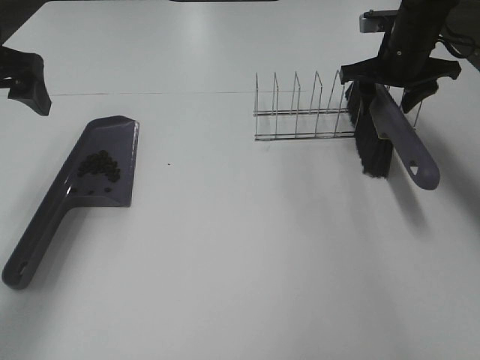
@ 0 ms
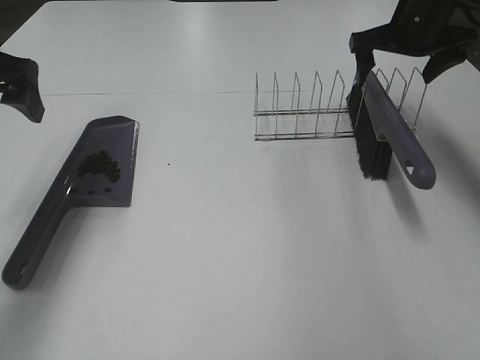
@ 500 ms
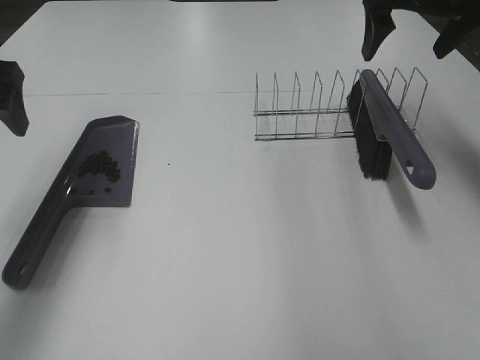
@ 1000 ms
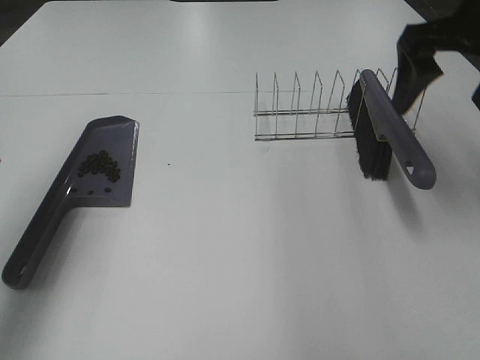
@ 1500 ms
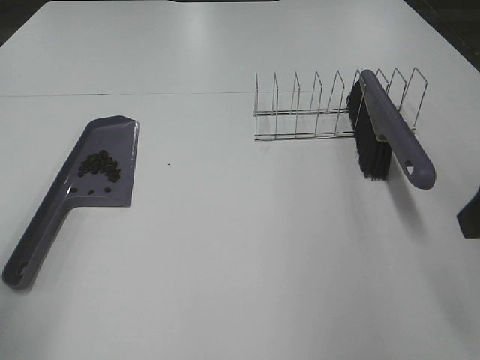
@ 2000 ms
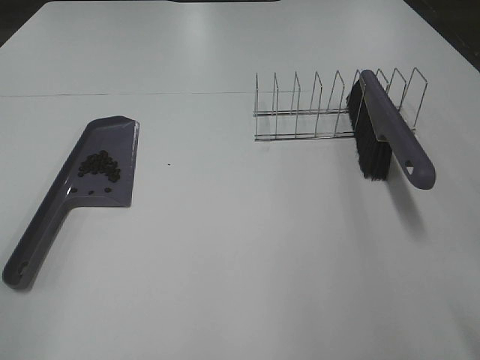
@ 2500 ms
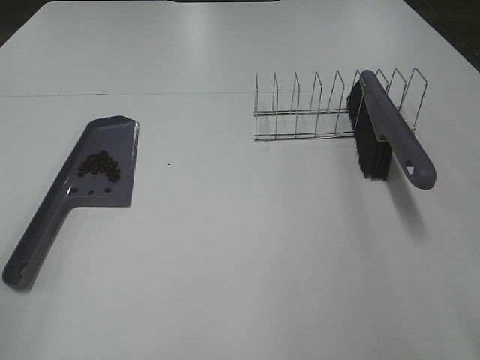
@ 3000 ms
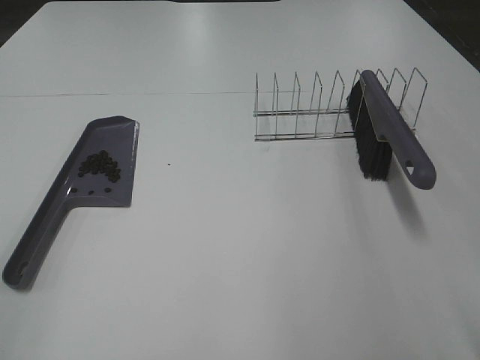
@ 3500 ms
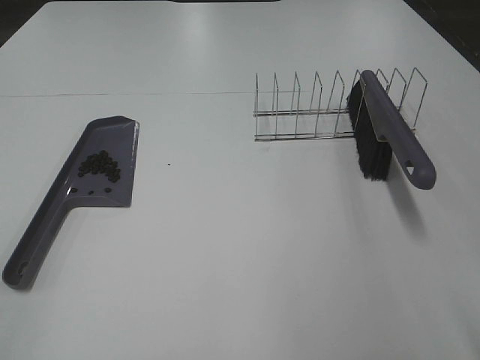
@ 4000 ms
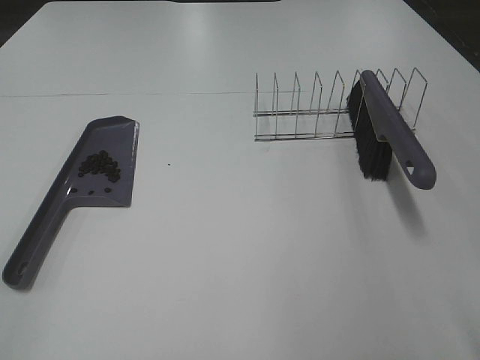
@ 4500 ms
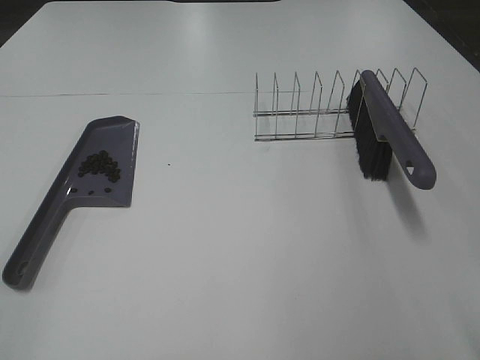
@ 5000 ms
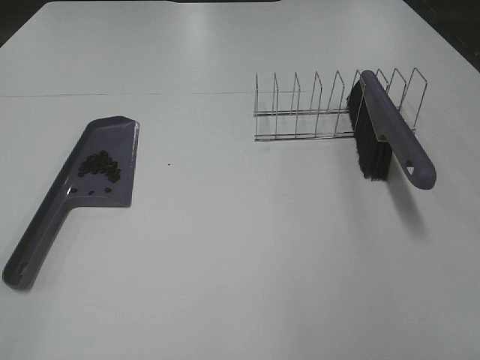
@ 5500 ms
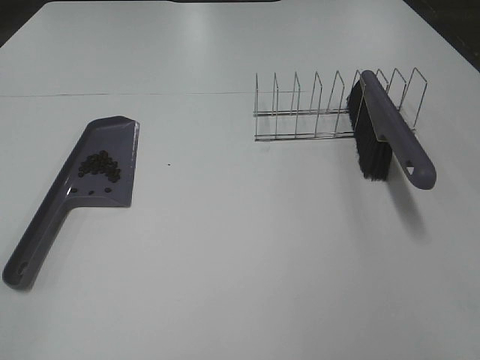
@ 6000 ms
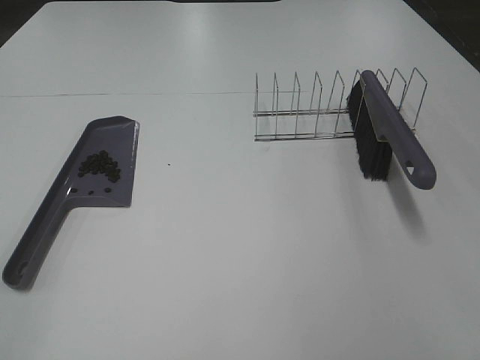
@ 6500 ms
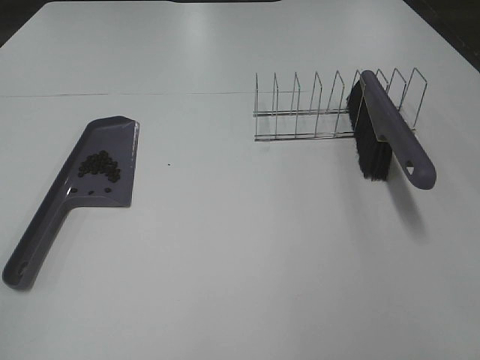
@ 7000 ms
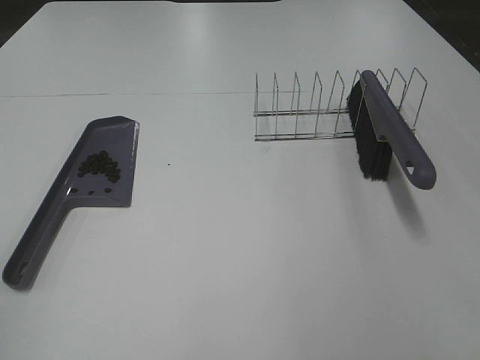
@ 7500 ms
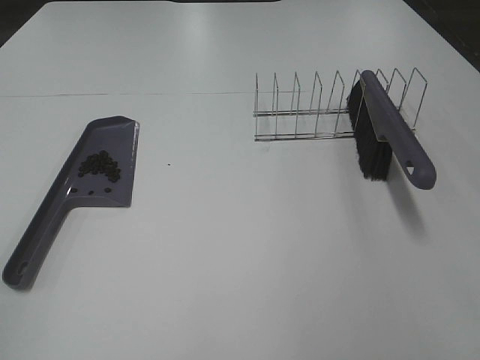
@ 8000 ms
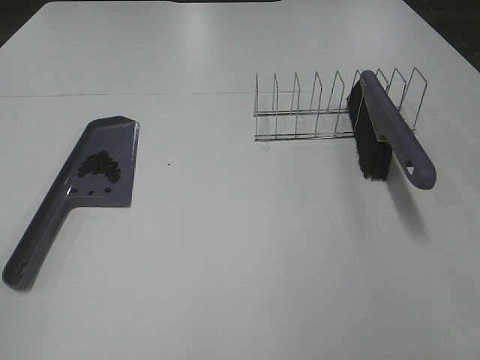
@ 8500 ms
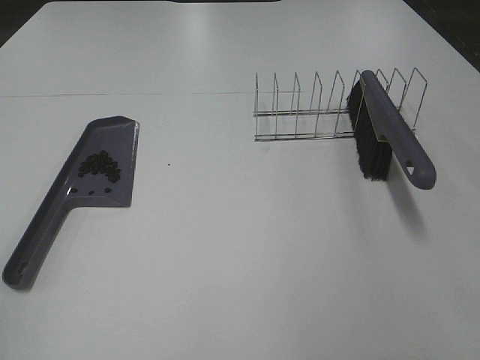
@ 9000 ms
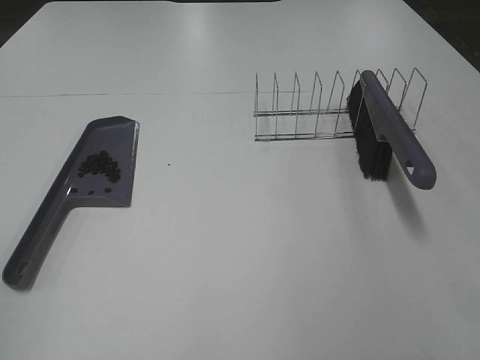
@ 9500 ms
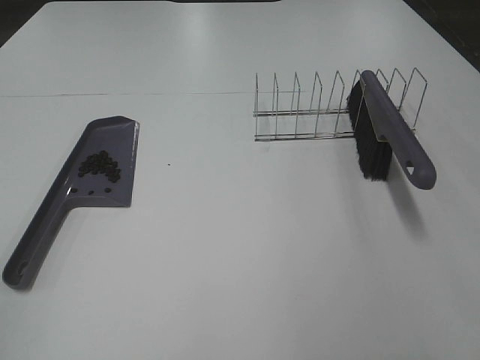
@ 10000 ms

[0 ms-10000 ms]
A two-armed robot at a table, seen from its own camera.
Task of the whole recording: Sweep Coffee Bean.
0 ms to 2000 ms: Both grippers move backward, approximately 25 cm. The right gripper opens its fingers.
8000 ms to 10000 ms: Both grippers stay put.

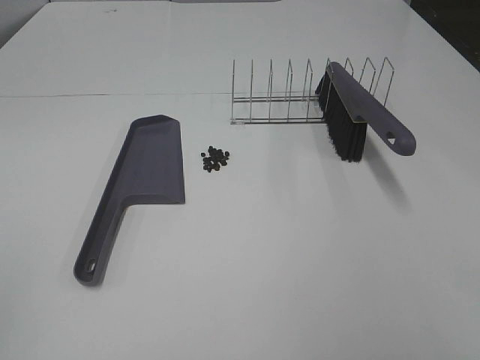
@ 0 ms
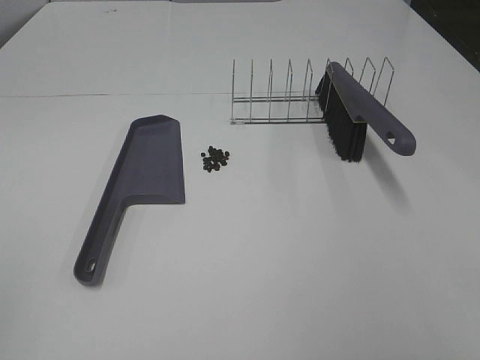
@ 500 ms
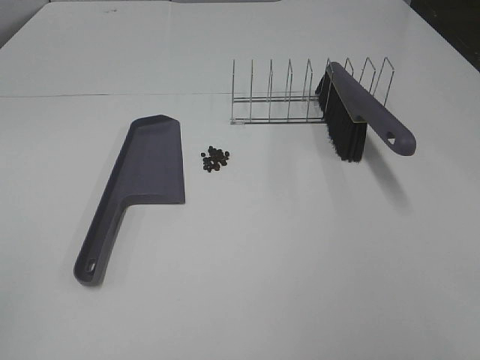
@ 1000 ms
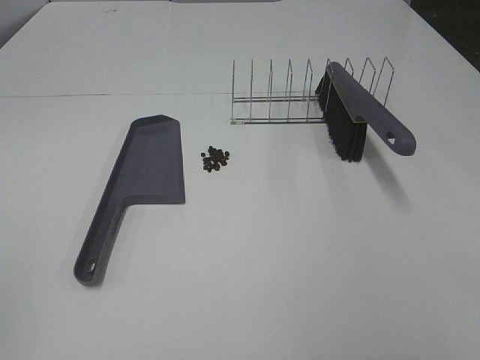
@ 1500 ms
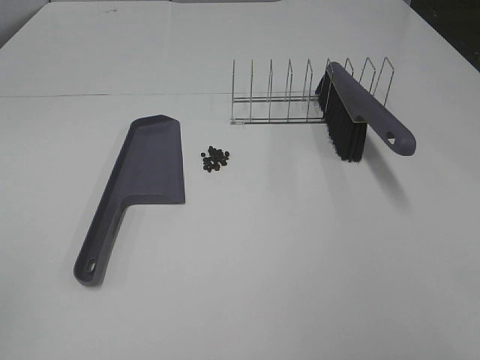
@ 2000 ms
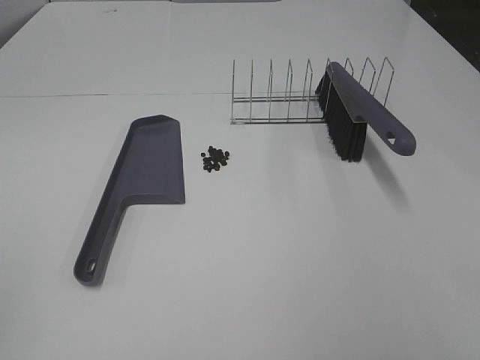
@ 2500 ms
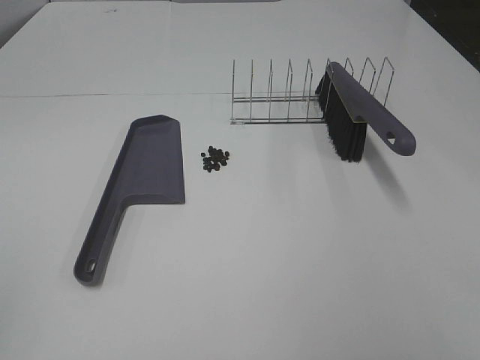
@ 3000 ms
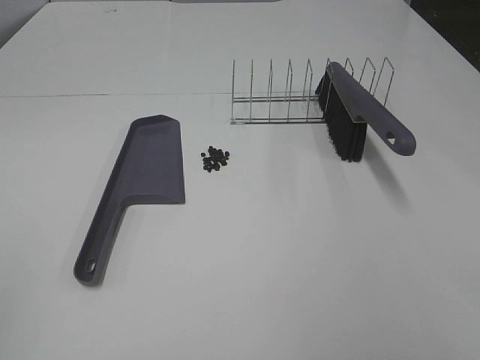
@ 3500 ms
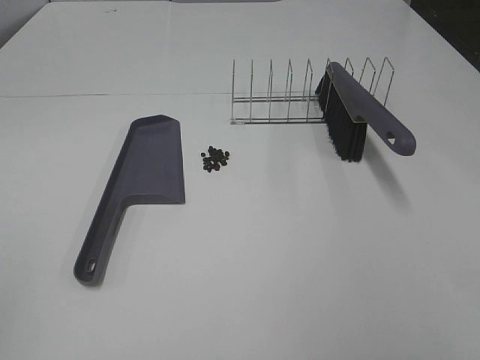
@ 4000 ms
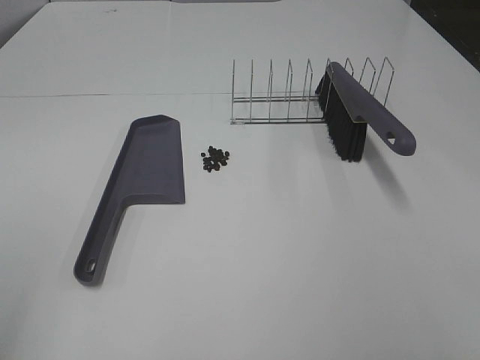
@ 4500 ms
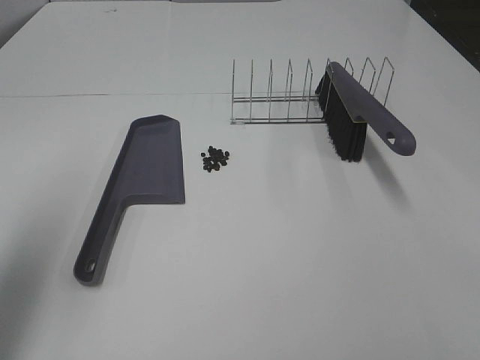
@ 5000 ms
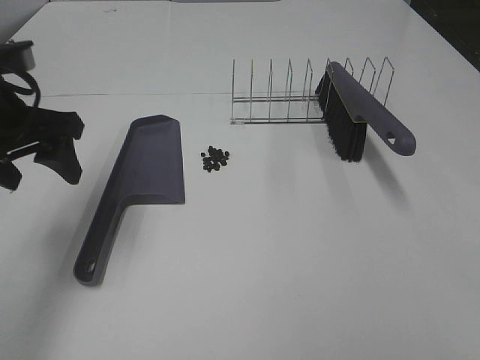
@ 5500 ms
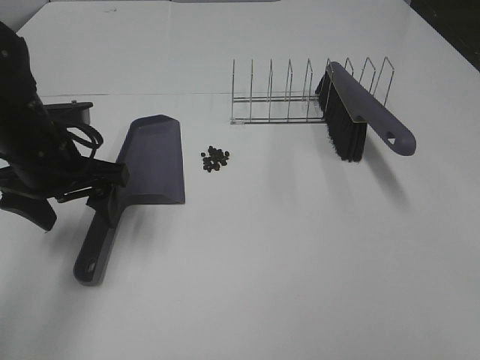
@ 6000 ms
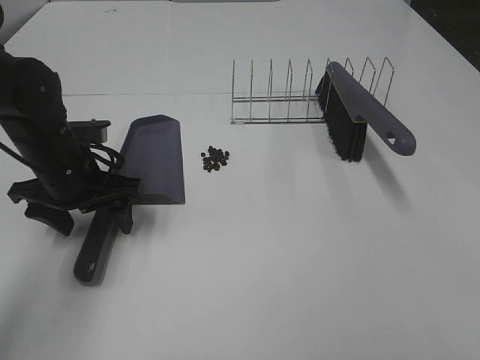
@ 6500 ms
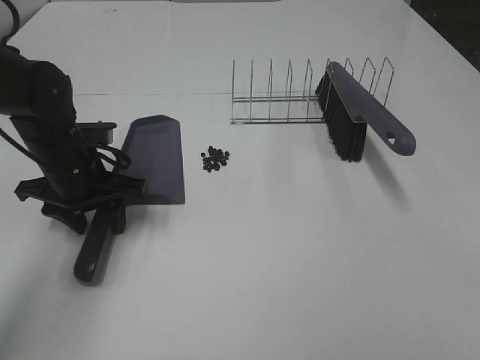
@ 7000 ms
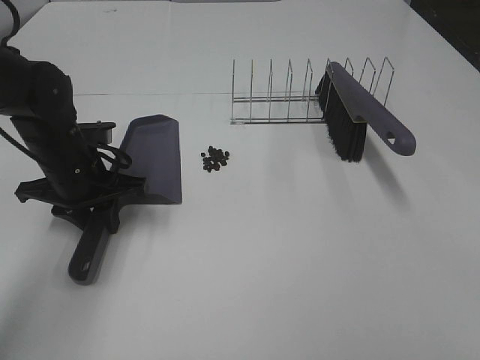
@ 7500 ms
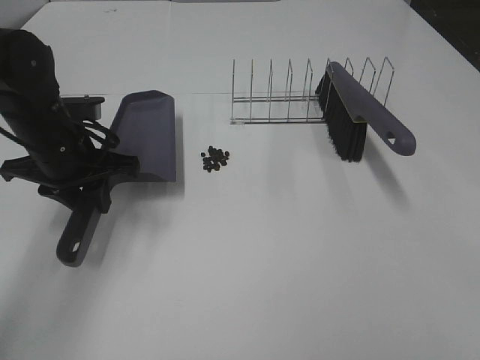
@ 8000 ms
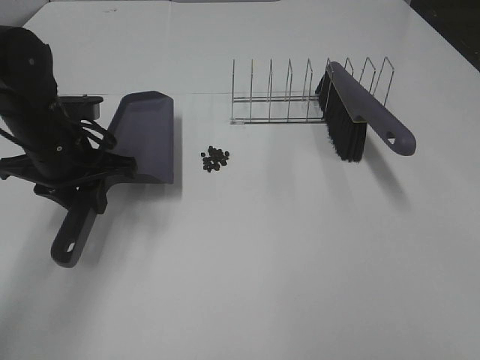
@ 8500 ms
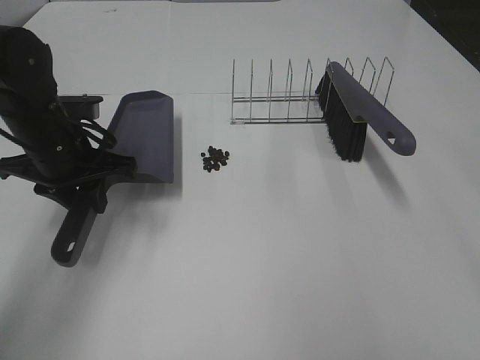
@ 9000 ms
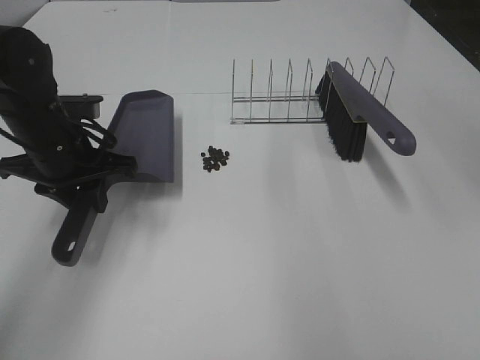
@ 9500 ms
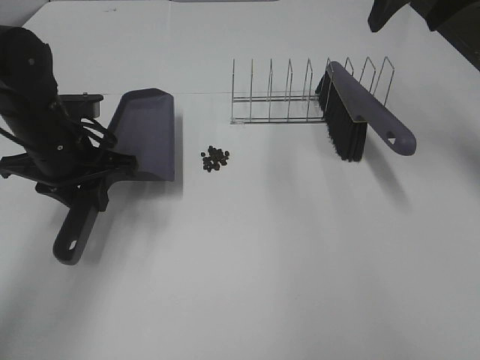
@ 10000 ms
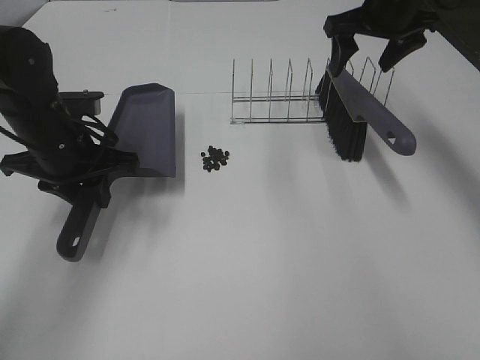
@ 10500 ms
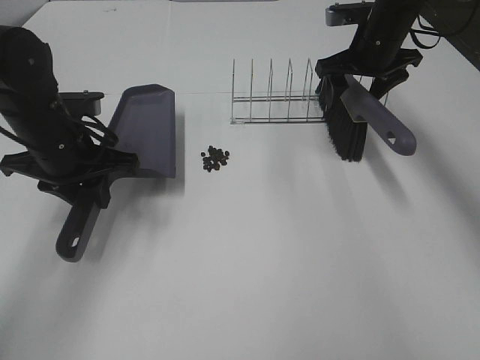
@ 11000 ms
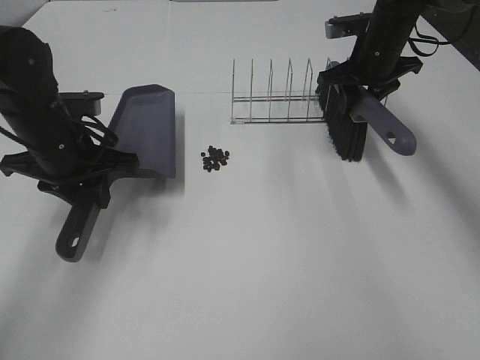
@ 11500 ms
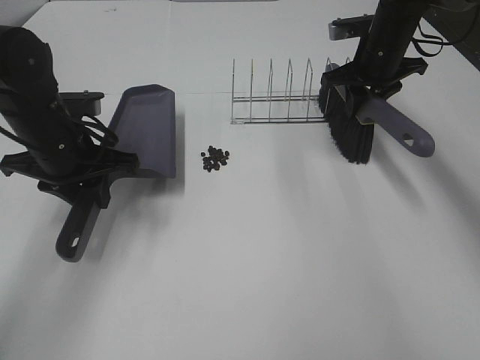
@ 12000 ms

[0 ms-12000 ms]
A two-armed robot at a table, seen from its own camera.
Task of the whole recording: Sweep Coffee Bean.
Step, 0 ms to 7000 ms: Left hand: grab the dustpan.
Step, 8500 ms to 11500 ms: Right hand:grab the broom.
0 ms to 4000 ms: Both grippers stay put.
4000 ms to 6000 ms: The left gripper is displaced forward and downward by roughly 35 cm.
6000 ms to 8000 ms: The left gripper closes.
8000 ms to 10000 ms: The right gripper moves forward, some 40 cm.
10000 ms to 12000 ms: The right gripper is displaced downward and forward by roughly 15 cm, and closes.

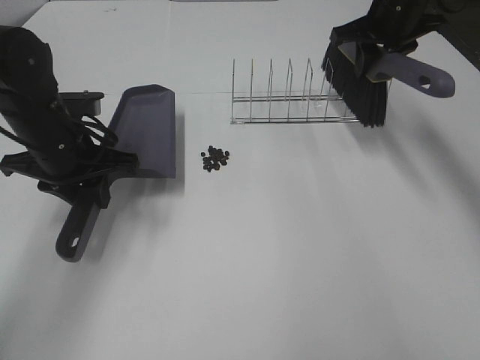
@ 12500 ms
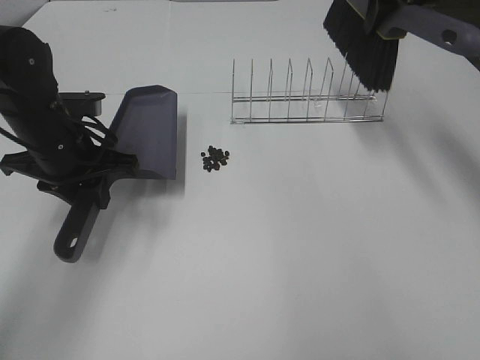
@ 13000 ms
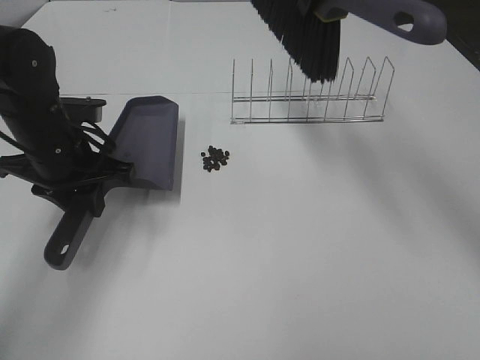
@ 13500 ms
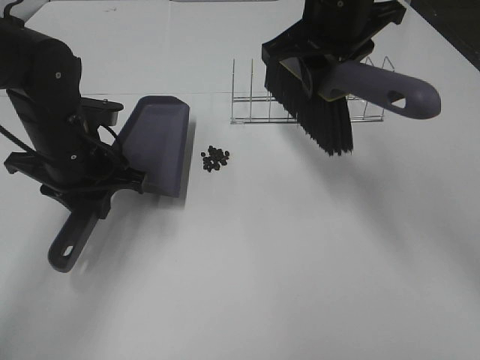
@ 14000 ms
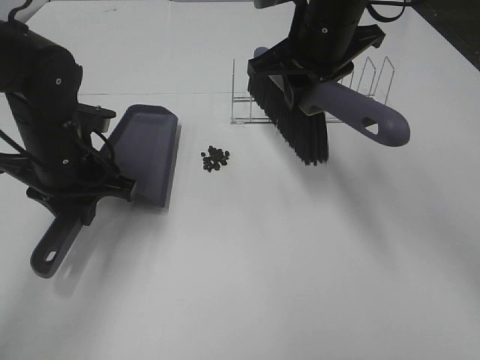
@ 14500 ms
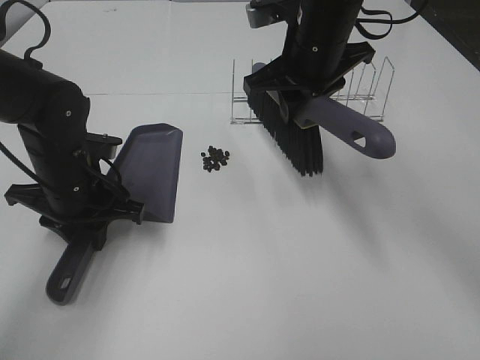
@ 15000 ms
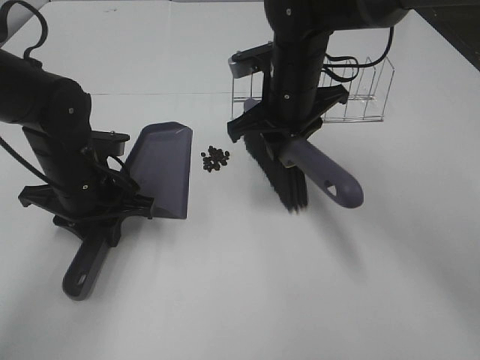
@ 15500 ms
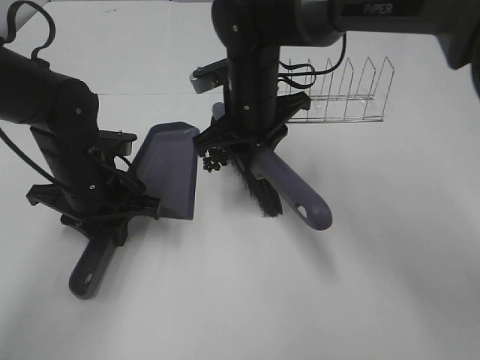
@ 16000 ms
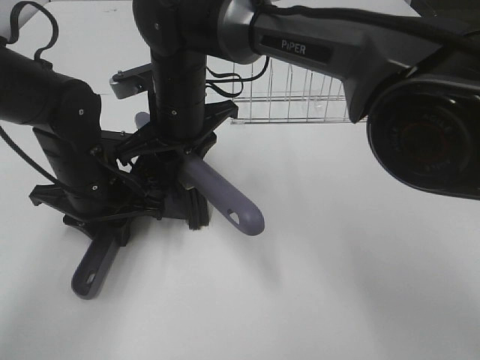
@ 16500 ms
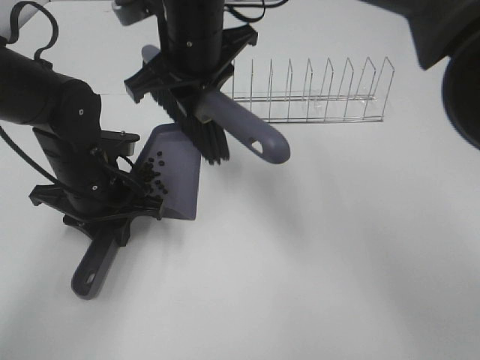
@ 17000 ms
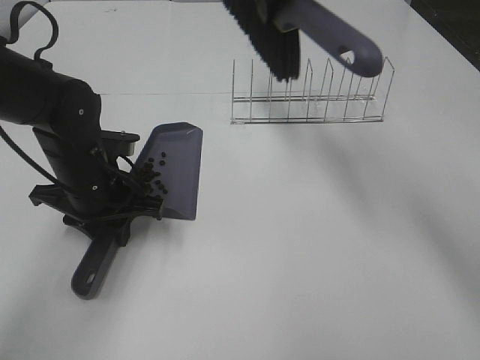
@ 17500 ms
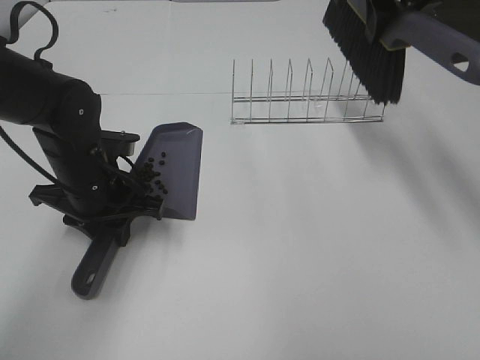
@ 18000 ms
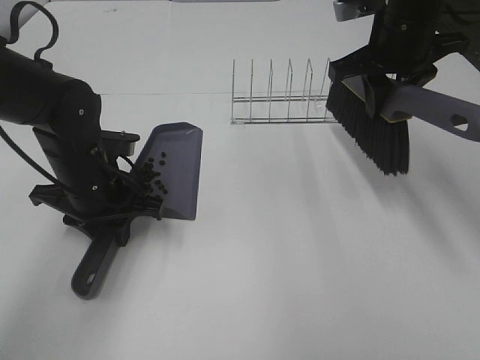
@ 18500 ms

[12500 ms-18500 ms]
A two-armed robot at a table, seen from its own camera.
Task of the whole recording: Sweep Coffee Bean.
Step, 12500 ms to 15000 ms: Left hand: move the dustpan to the left side of the coffee beans.
Step, 12500 ms to 16500 ms: Right hand:sweep the coffee beans into the dustpan.
12500 ms to 14500 ms: The right gripper travels to the left and backward by approximately 15 cm.
14500 ms to 16500 ms: The right gripper moves to the left and downward, approximately 20 cm. Meanwhile the left gripper moves some 5 cm.
16500 ms to 18500 ms: The right gripper moves to the right, approximately 25 cm.
